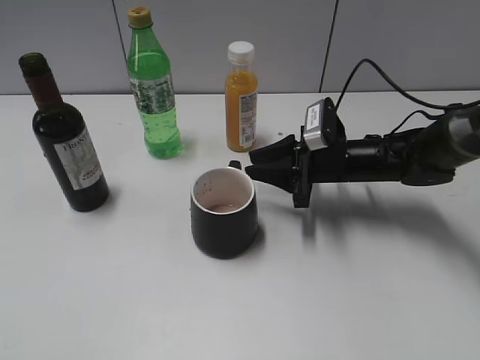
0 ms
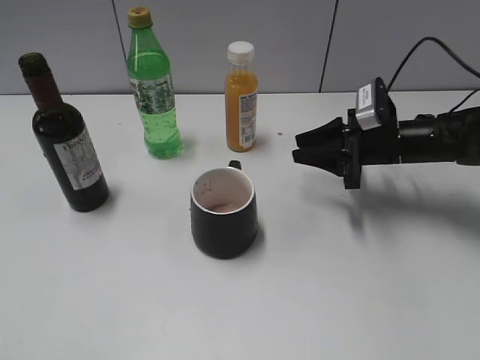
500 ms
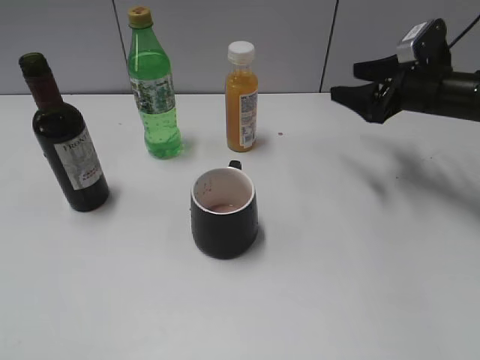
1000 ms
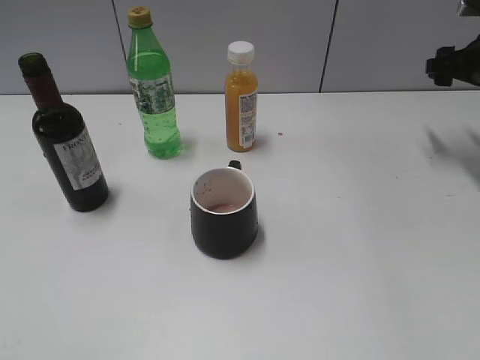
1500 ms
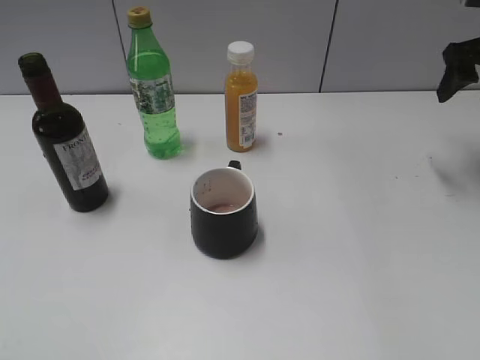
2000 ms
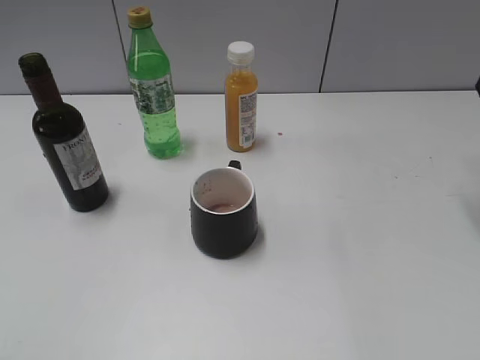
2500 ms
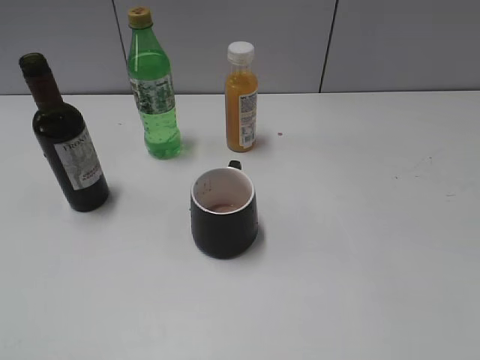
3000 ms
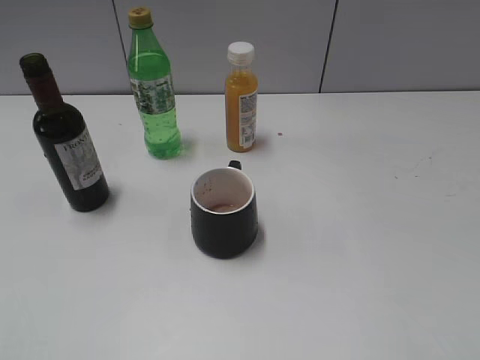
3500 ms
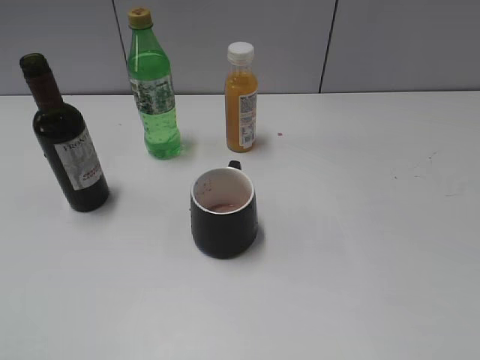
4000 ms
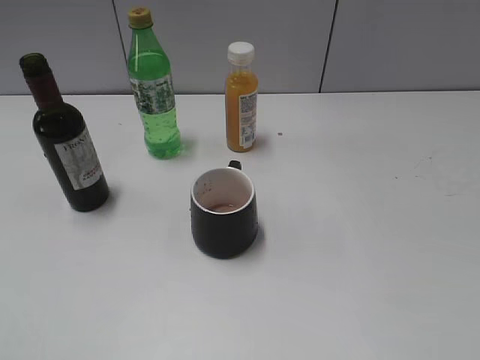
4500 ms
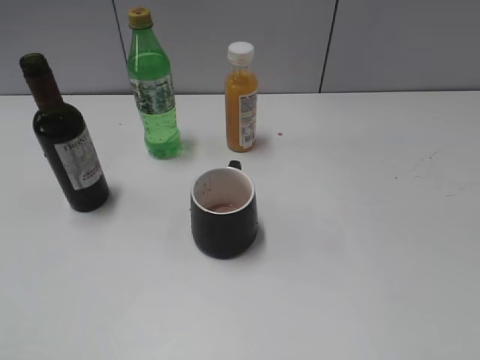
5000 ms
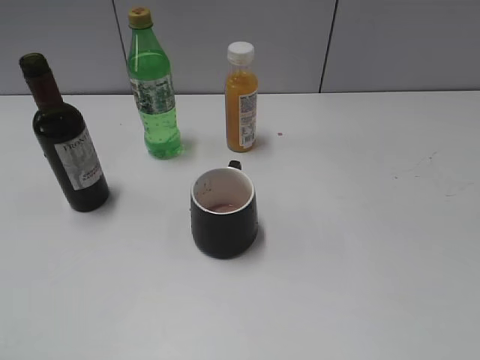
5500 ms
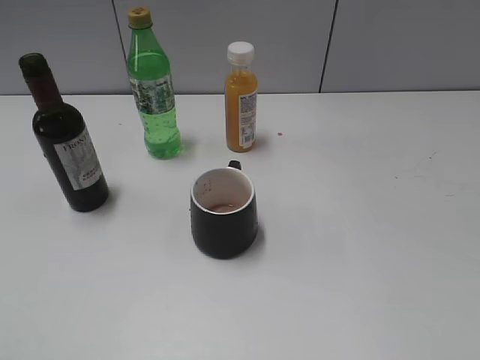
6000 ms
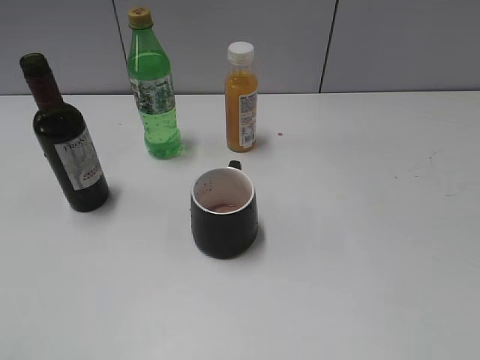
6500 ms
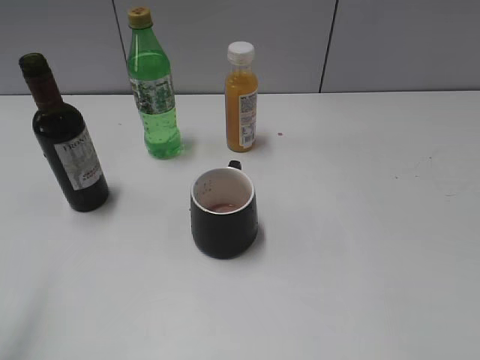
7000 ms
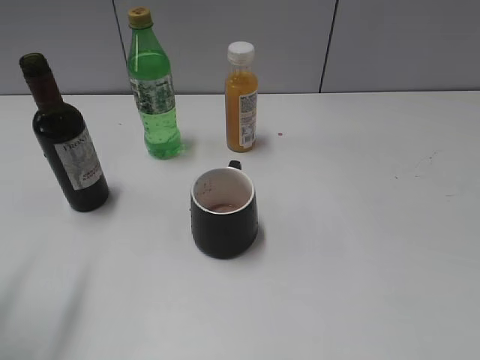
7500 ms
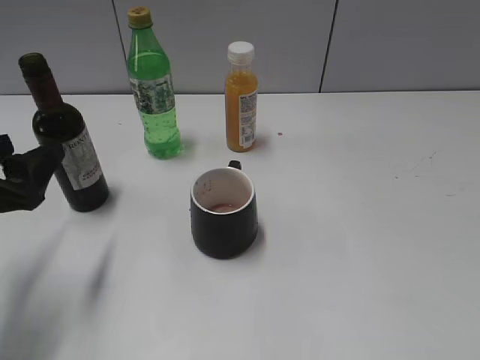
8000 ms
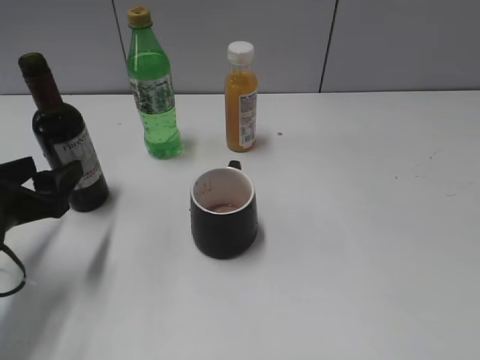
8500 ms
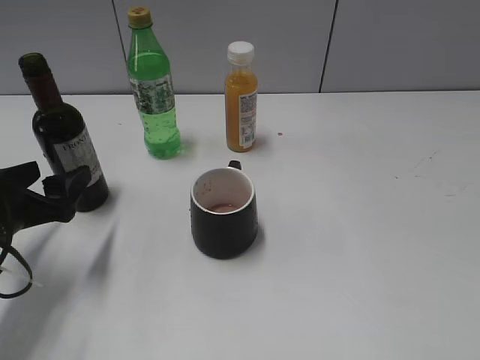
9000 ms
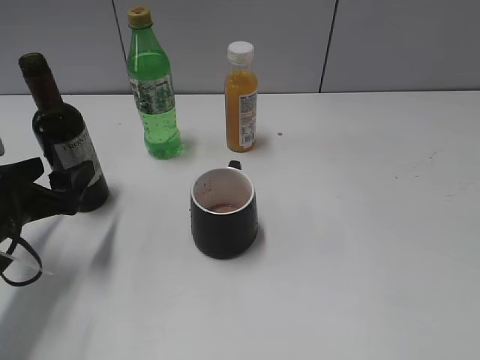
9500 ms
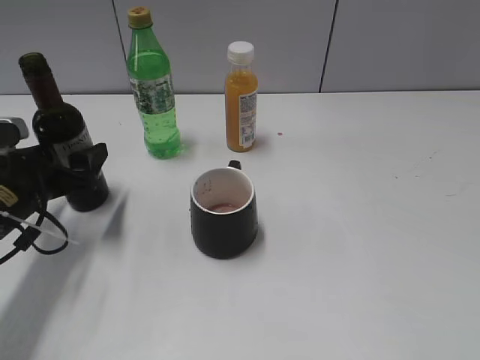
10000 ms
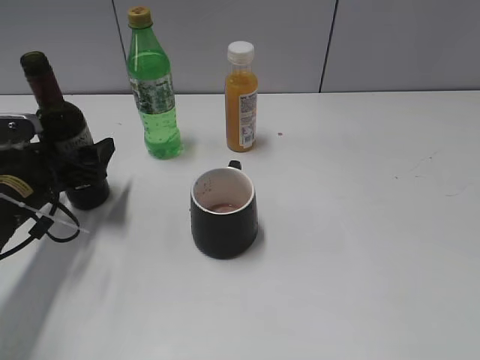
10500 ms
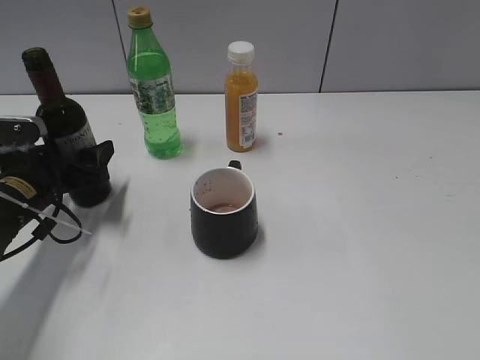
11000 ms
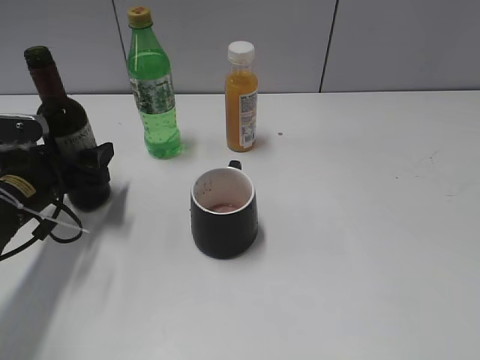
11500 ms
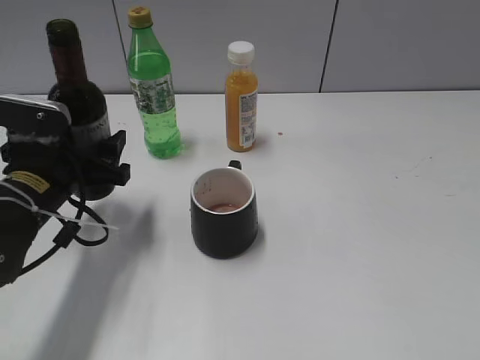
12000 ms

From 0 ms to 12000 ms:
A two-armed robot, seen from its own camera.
Step, from 500 ms to 11000 ms: Grasp the bottle with red wine with left gripper.
From 0 ms to 2000 ms: The right gripper is displaced to the right and upward by roughly 25 cm, and opens.
From 2000 ms to 4000 ms: The right gripper moves backward, some 40 cm.
From 6000 ms to 8000 ms: The left gripper goes about 25 cm forward and downward.
From 8000 ms to 10000 ms: The left gripper travels forward and downward by roughly 10 cm, and opens its fingers.
From 10000 ms to 12000 ms: The left gripper ends up approximately 5 cm from where it was, and closes.

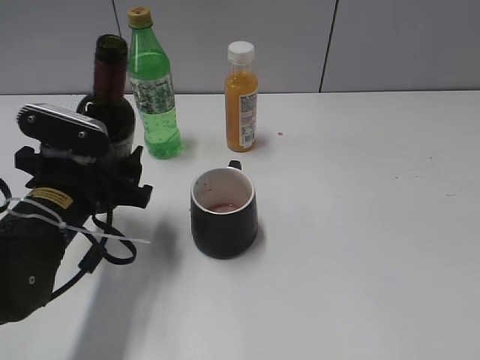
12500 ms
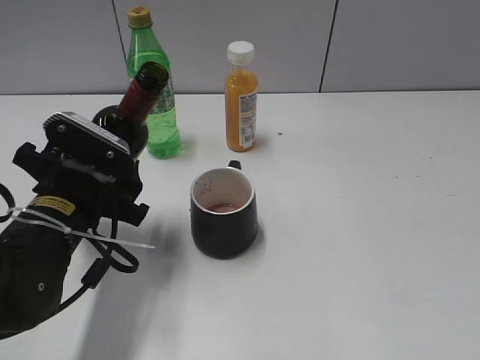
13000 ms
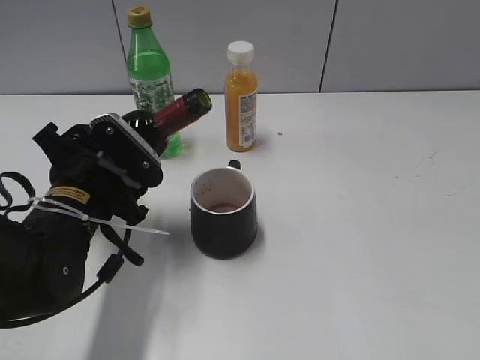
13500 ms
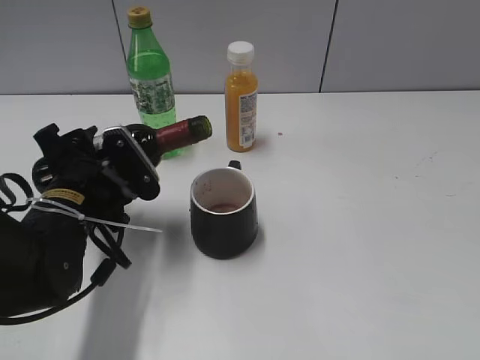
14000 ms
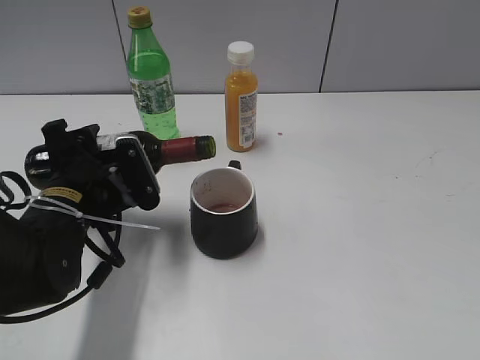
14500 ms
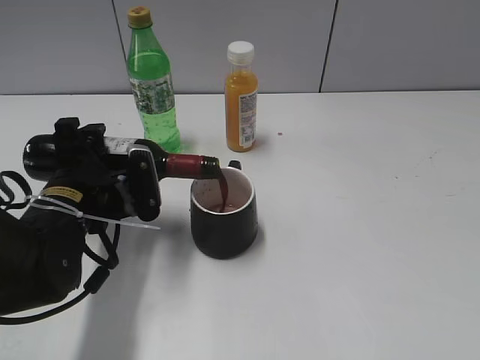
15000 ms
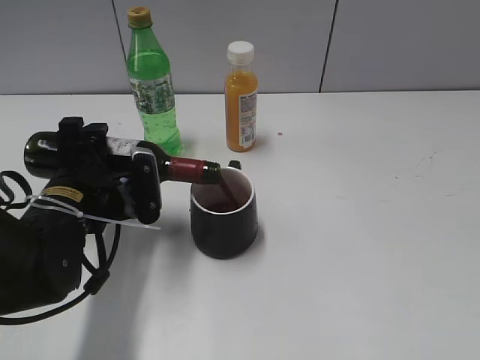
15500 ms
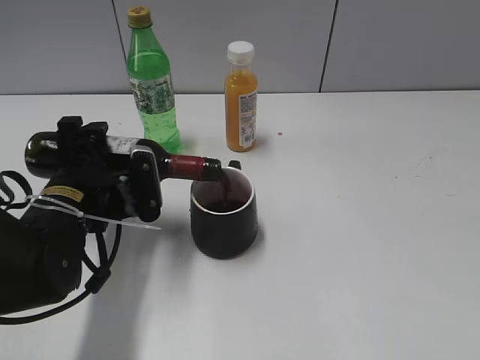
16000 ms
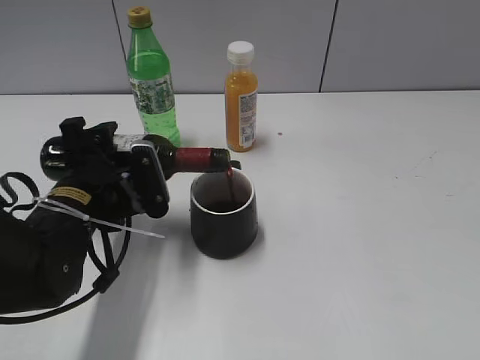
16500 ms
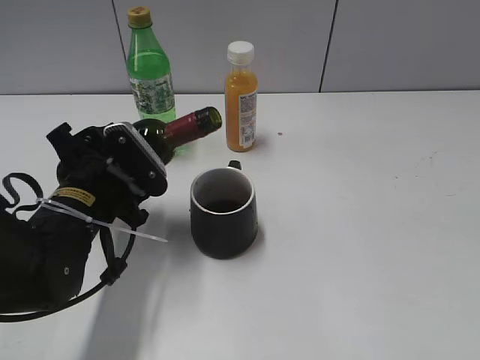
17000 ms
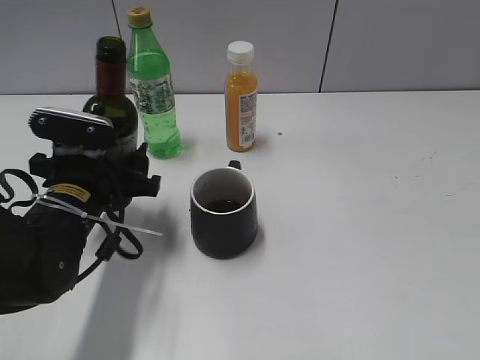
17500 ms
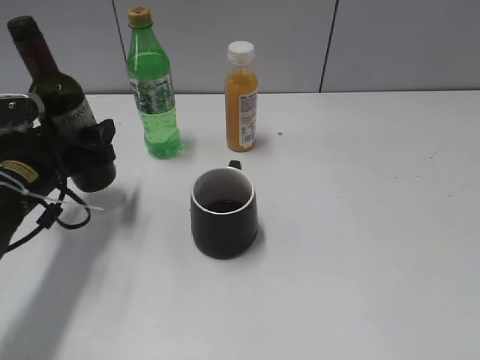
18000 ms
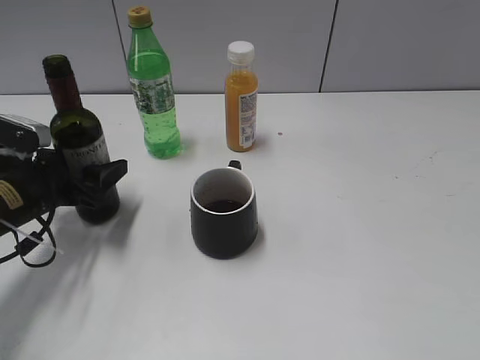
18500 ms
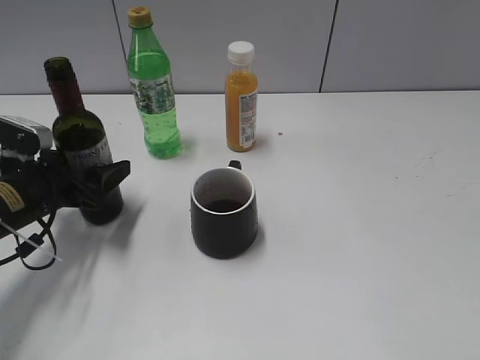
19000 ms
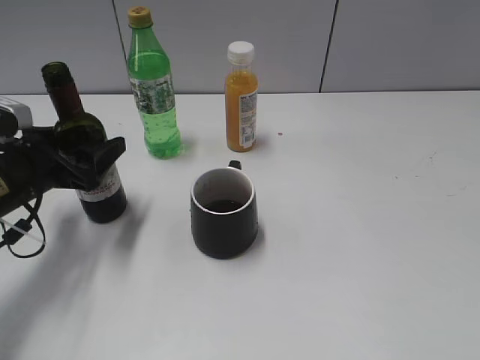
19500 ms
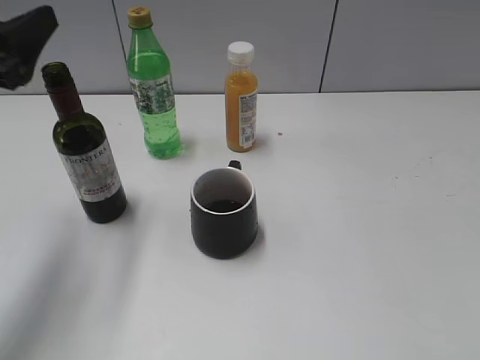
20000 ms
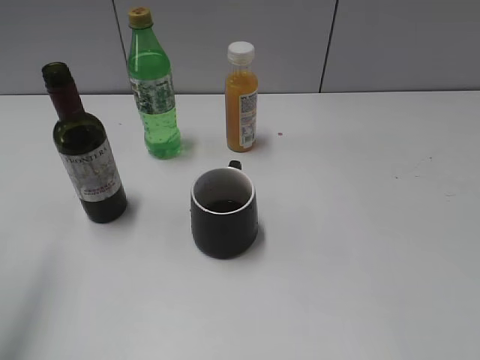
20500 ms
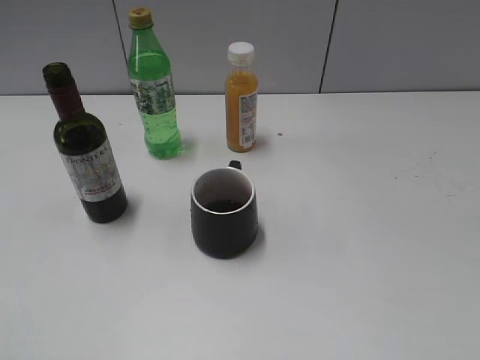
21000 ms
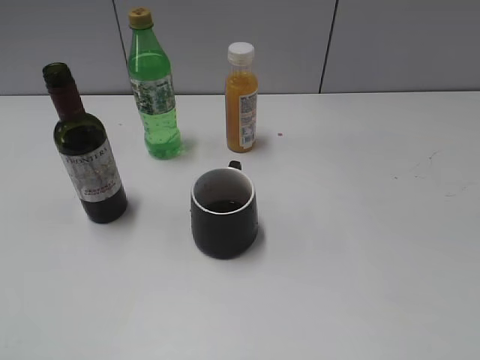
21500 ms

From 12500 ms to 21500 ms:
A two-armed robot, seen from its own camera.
Step, from 12500 ms to 16500 ms: Pour the red wine from bottle to cup with left gripper.
Step, from 17000 ms to 19500 ms: Place the red wine bottle on the table with left gripper.
From 14500 ms to 17000 ms: There are only small adjustments of the grippers.
From 17000 ms to 19500 ms: The left gripper is displaced to the left by about 10 cm, and opens.
From 19500 ms to 21500 ms: The left gripper is displaced backward and upward by approximately 35 cm, and closes up.

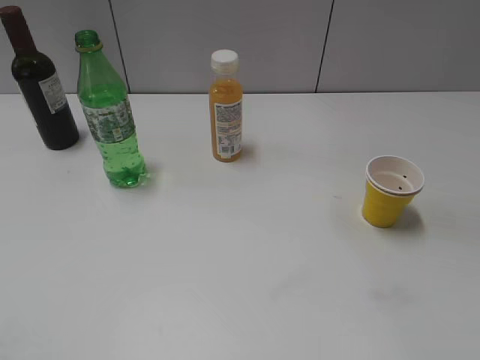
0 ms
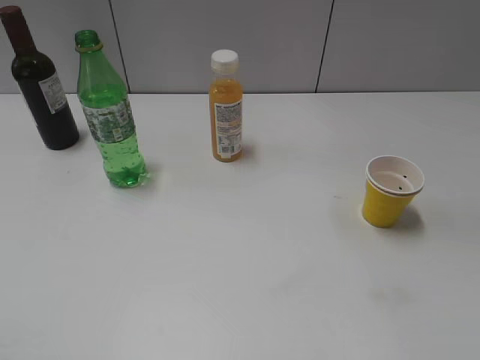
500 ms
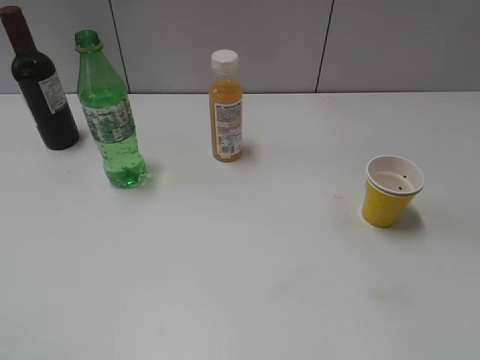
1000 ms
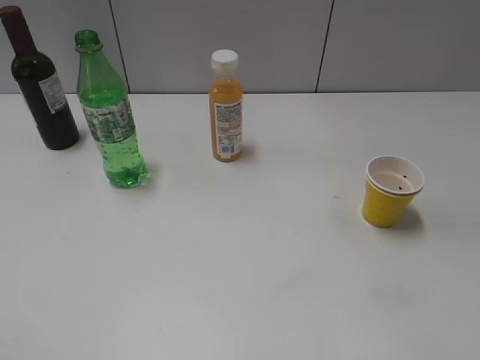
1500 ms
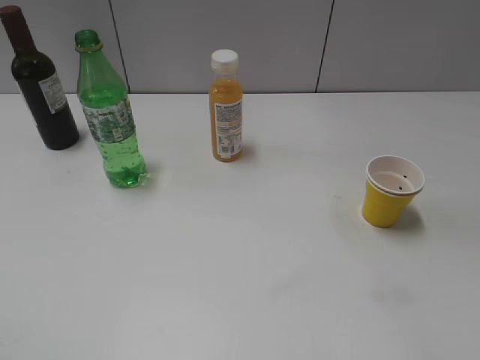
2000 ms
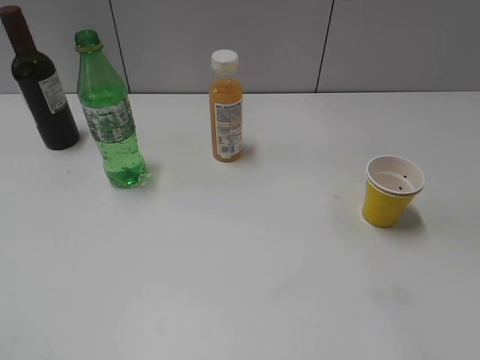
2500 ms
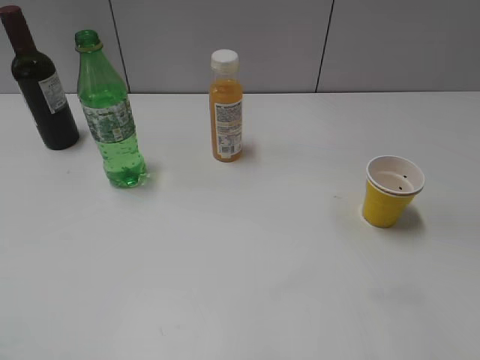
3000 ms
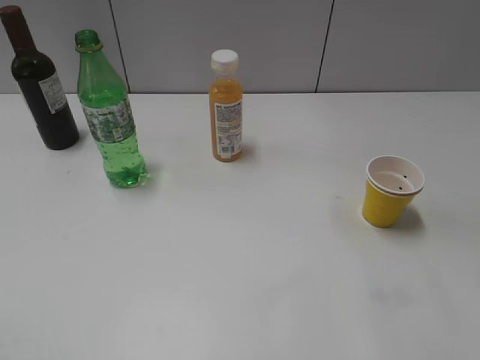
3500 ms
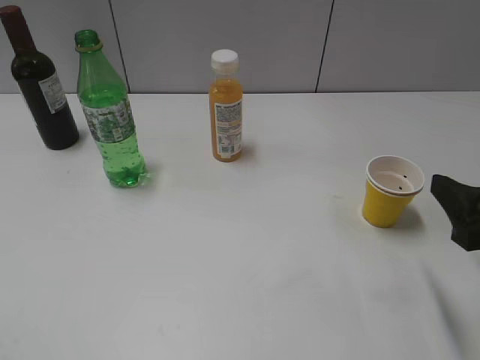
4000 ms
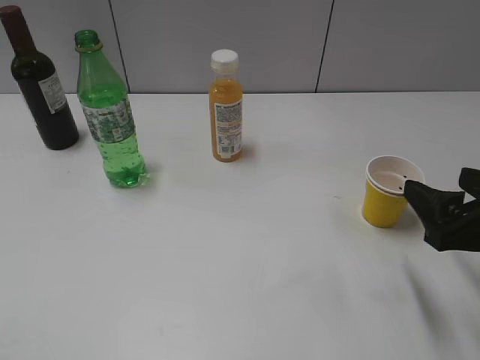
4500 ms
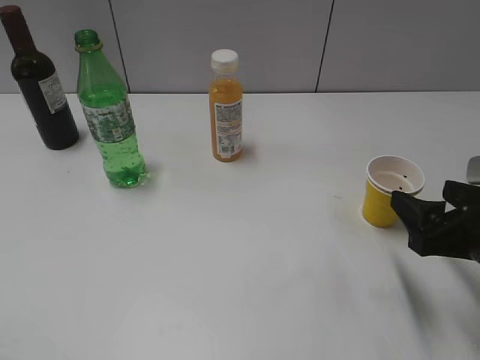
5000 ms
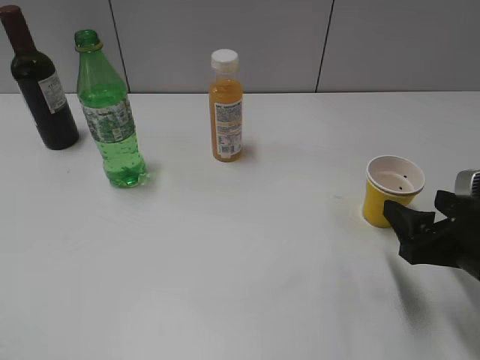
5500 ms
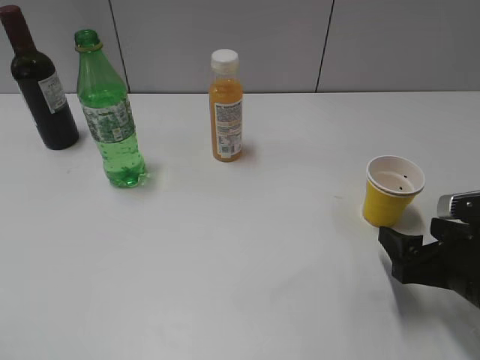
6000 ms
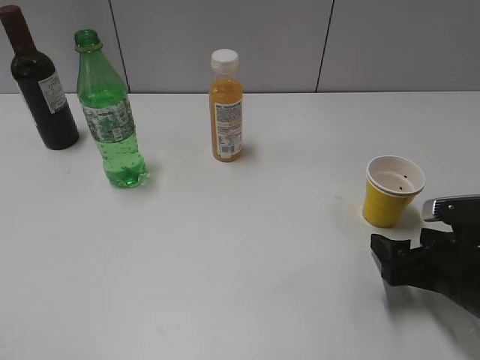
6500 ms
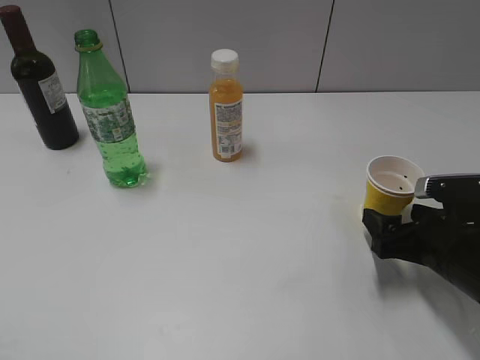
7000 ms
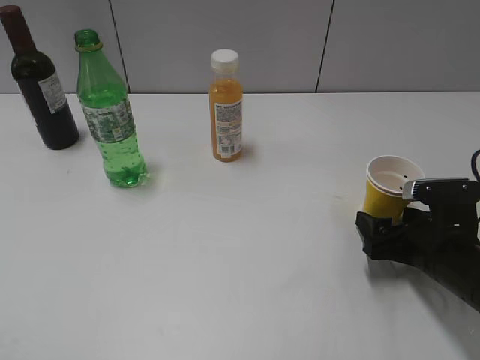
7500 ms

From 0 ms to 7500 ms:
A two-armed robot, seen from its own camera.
From 2000 ms to 4000 ms: The right gripper shifts approximately 15 cm forward and downward.
From 4000 ms to 5500 ms: The right gripper is displaced downward by about 5 cm.
From 5500 ms to 7500 ms: The right gripper travels downward by about 5 cm.
